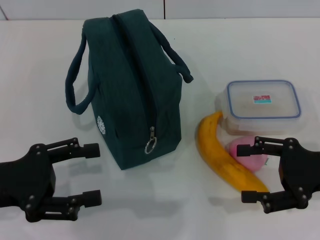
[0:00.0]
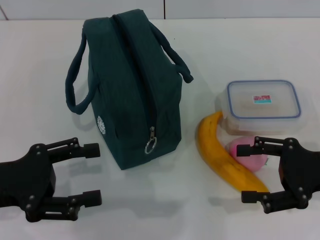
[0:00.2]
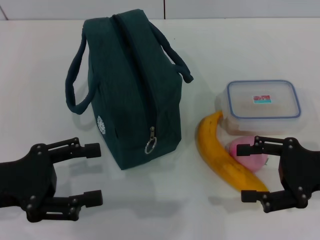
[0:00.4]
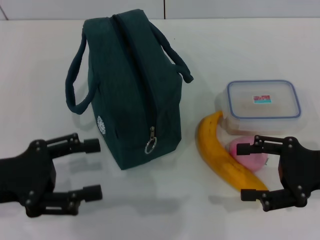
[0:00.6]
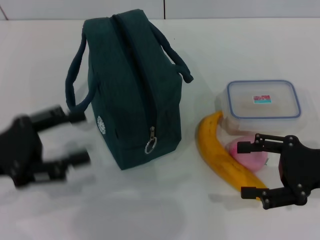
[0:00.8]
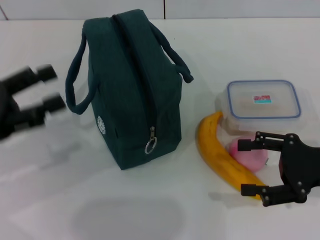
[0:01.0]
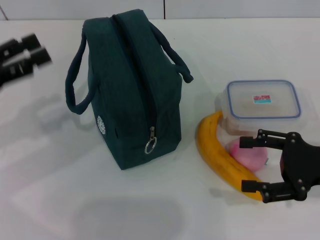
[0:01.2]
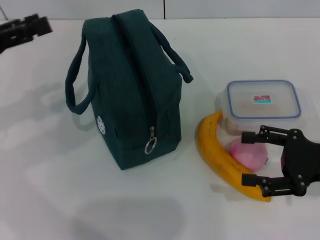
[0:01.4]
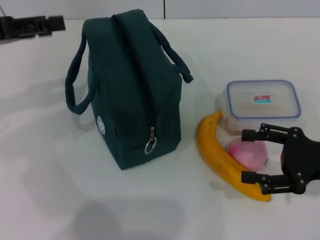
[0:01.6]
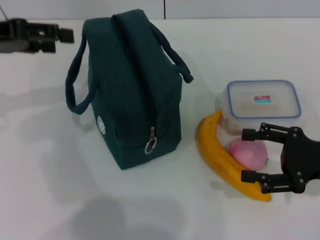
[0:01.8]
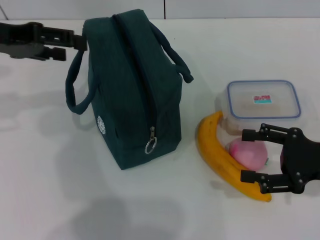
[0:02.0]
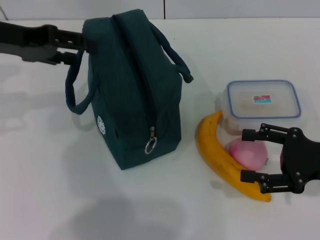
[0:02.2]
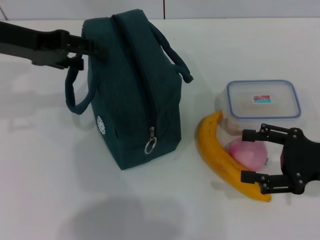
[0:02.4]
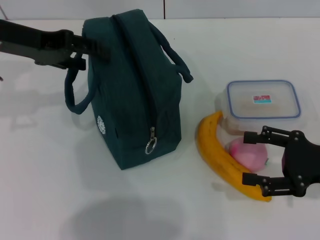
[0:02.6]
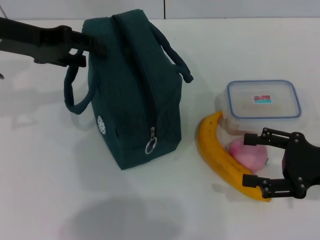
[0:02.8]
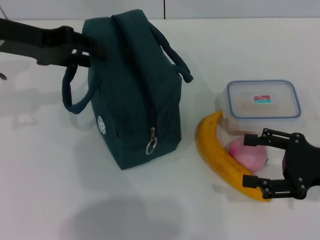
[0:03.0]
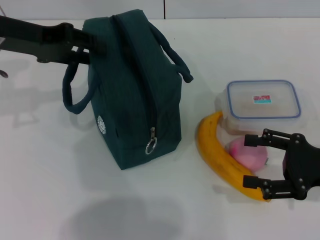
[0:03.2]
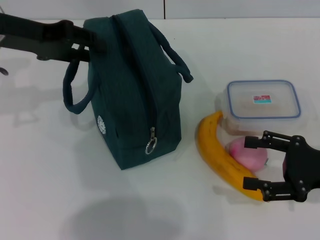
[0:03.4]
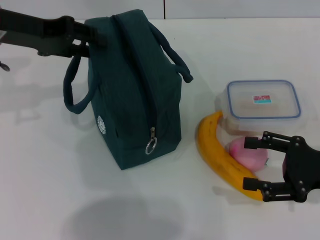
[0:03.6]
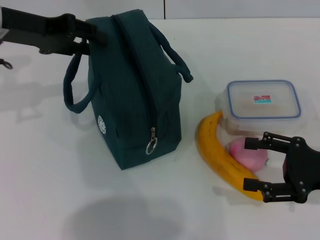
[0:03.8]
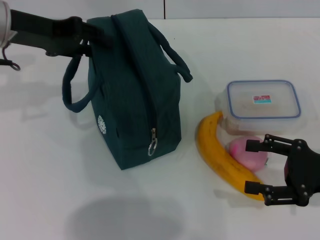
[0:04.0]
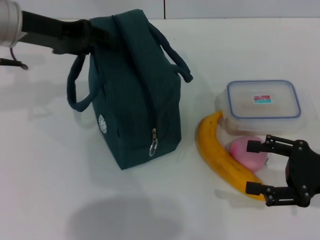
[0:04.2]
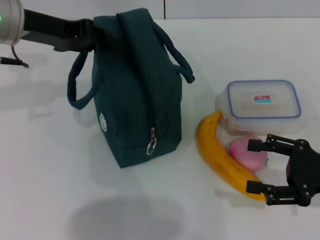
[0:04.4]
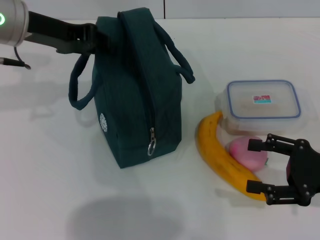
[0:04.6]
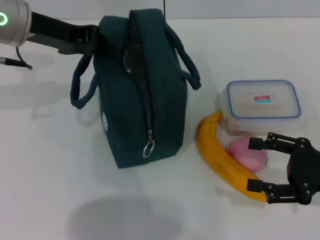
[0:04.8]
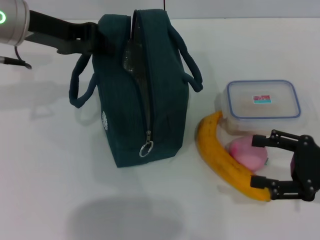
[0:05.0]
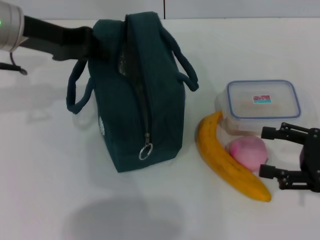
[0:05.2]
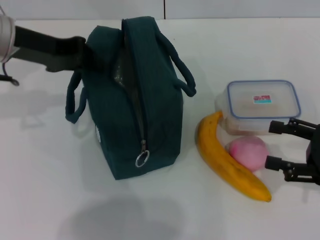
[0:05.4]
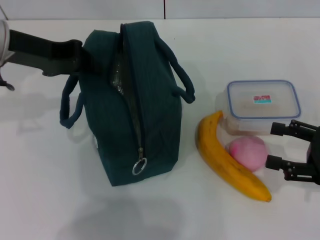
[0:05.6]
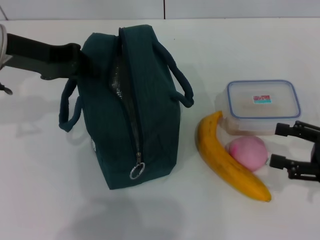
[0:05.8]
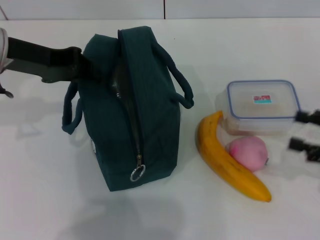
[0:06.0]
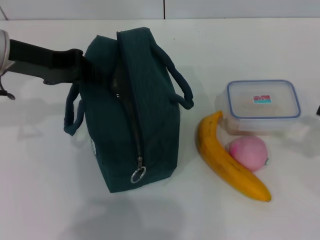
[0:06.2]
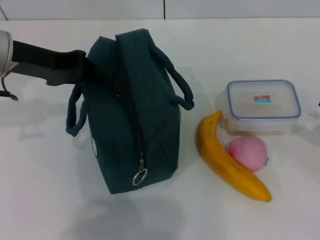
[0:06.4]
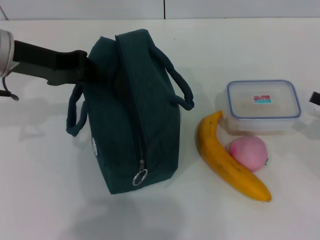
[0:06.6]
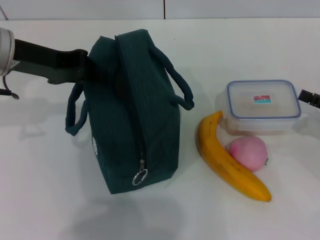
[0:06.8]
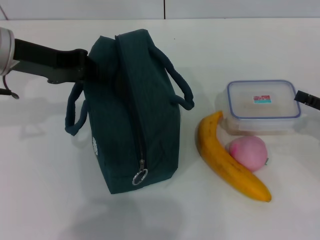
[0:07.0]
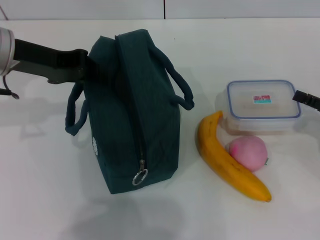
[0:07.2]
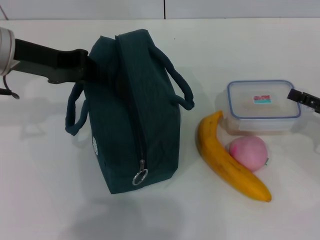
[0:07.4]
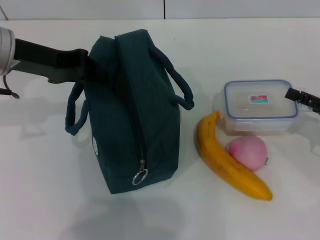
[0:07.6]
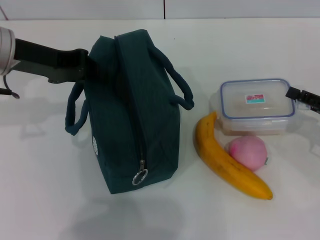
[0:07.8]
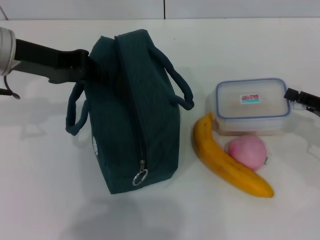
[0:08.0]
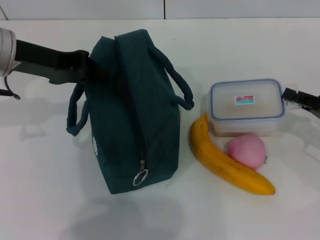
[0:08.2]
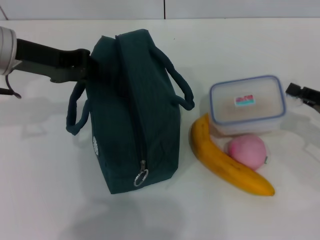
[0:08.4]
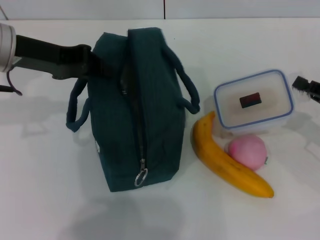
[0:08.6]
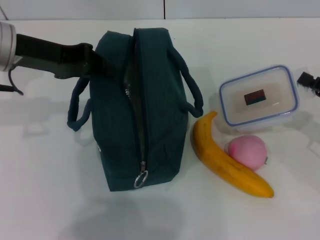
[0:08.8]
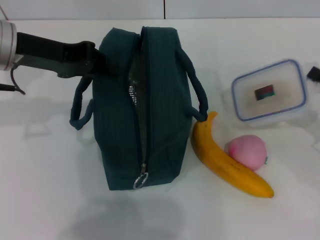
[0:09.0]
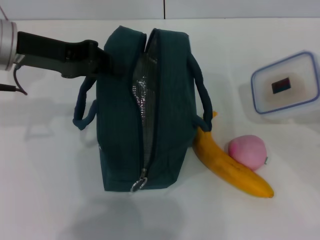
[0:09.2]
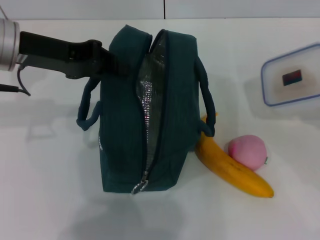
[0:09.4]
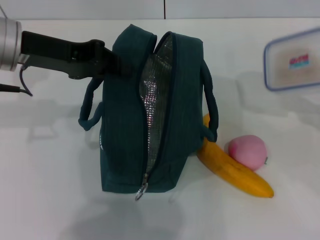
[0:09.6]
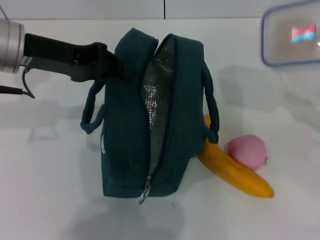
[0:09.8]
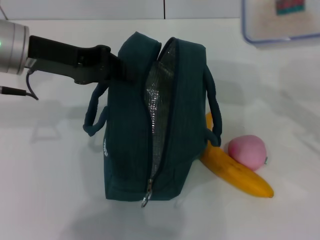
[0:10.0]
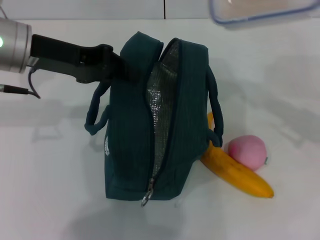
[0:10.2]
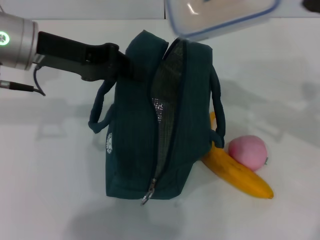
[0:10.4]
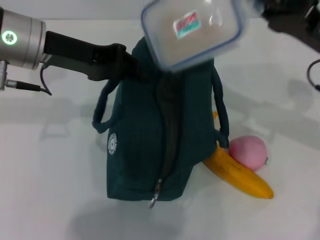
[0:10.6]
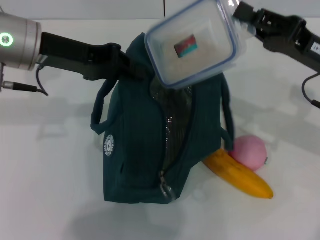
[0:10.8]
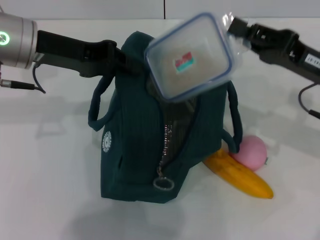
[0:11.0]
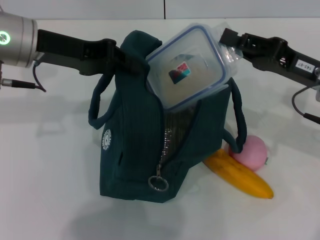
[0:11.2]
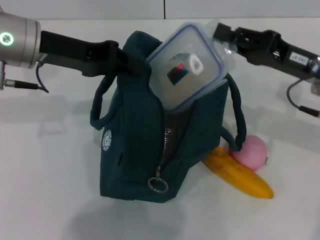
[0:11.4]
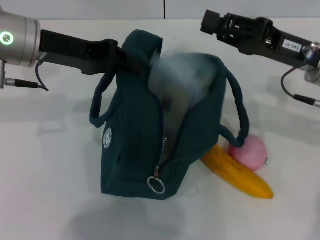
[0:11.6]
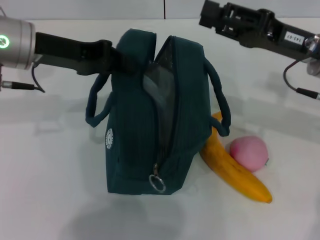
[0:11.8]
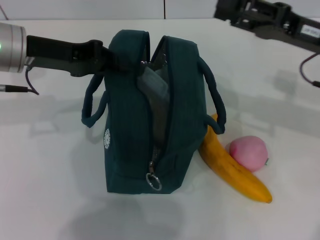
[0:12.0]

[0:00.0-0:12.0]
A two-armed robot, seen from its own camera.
Step, 0:00.0 to 0:05.8: Hold the lunch bag with your left hand.
Step, 0:06.0 to 0:08.2: Pick up the lunch box with your right hand.
Step, 0:08.4 to 0:11.8: Place the lunch box into the lunch bag with your right hand.
0:00.0 to 0:01.6: The left gripper shifts approximately 15 cm forward and upward.
0:01.6 to 0:03.0: The left gripper goes roughly 5 cm to the right.
0:03.0 to 0:04.4: The grippers make only small movements.
0:04.4 to 0:06.0: The right gripper heads to the right, covering approximately 5 cm; the left gripper closes up.
0:06.0 to 0:07.6: The right gripper moves some 5 cm.
0:07.6 to 0:09.0: The right gripper closes up.
0:09.0 to 0:10.4: The right gripper is displaced to the left and upward by approximately 15 cm.
0:10.4 to 0:12.0: The right gripper opens its fingers.

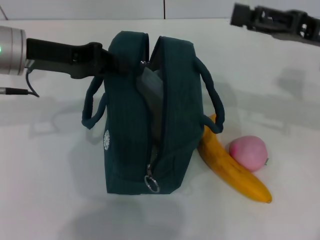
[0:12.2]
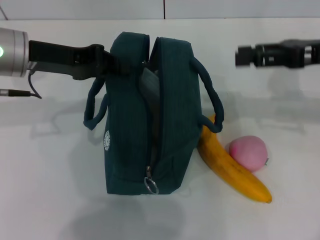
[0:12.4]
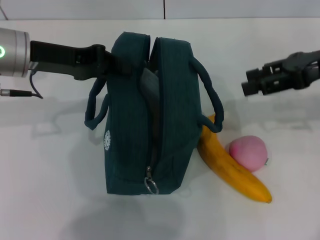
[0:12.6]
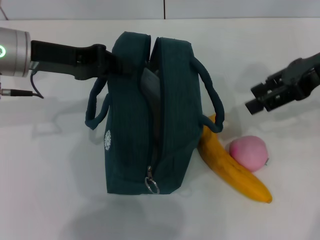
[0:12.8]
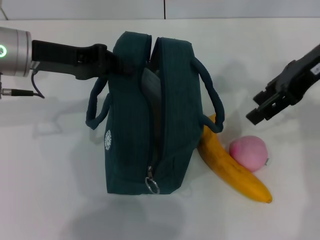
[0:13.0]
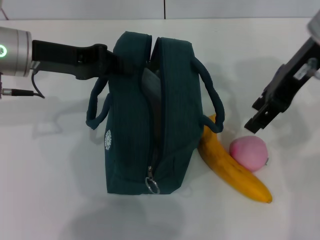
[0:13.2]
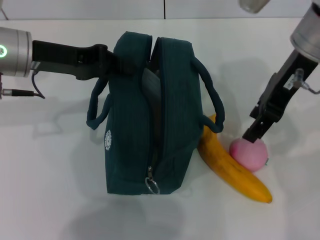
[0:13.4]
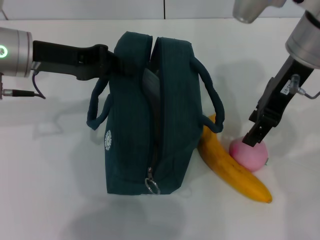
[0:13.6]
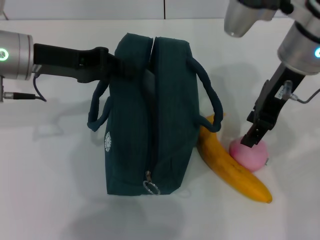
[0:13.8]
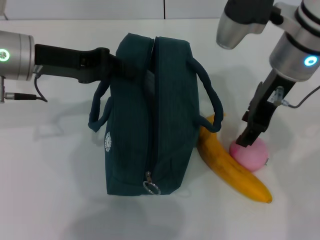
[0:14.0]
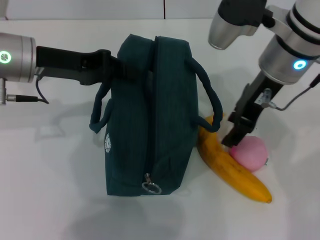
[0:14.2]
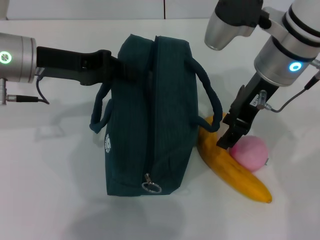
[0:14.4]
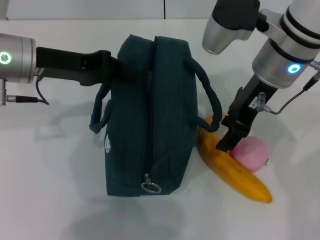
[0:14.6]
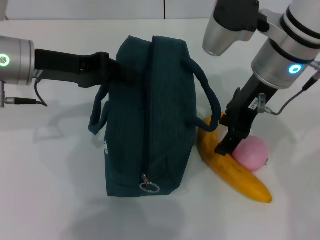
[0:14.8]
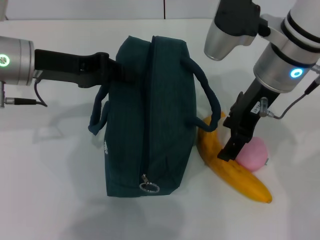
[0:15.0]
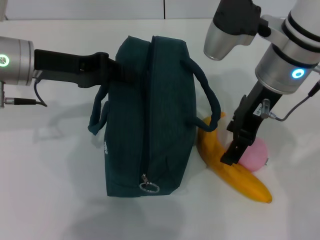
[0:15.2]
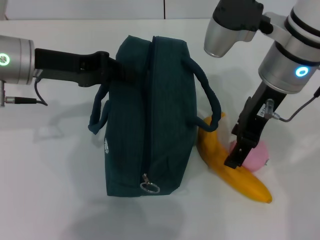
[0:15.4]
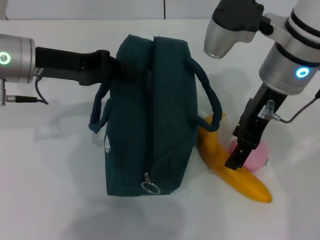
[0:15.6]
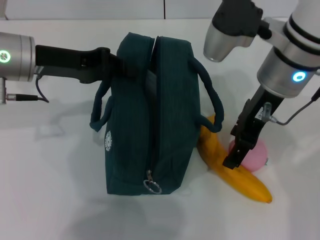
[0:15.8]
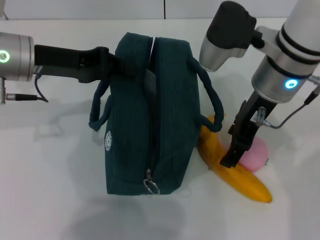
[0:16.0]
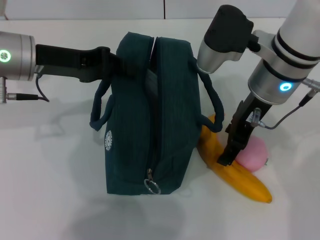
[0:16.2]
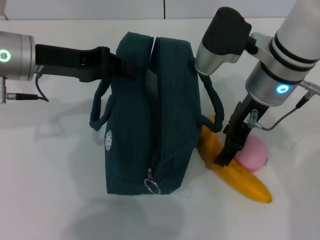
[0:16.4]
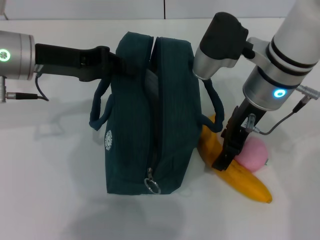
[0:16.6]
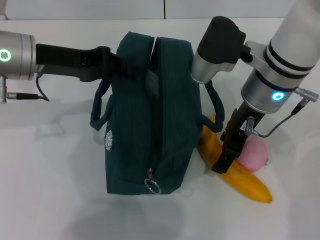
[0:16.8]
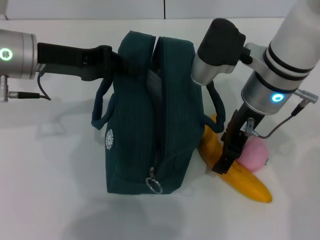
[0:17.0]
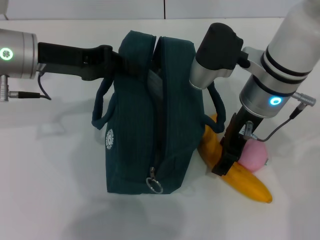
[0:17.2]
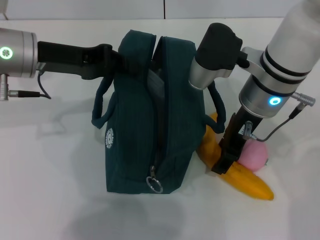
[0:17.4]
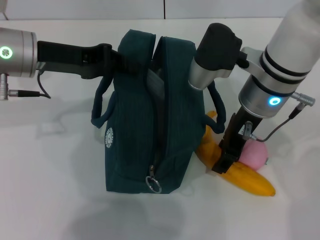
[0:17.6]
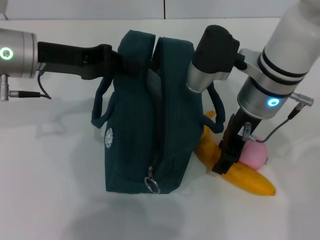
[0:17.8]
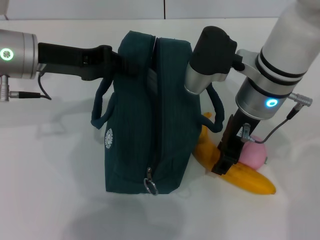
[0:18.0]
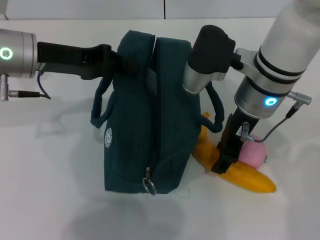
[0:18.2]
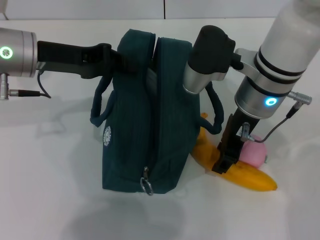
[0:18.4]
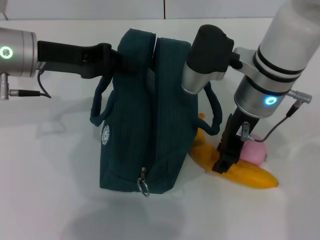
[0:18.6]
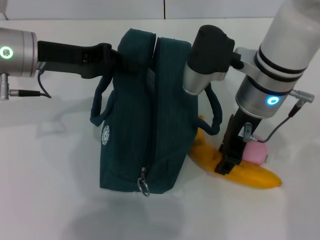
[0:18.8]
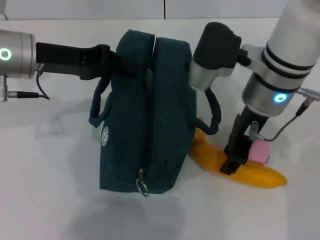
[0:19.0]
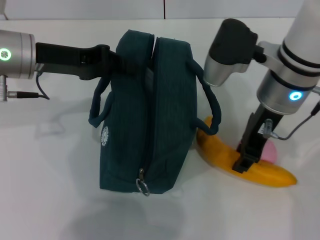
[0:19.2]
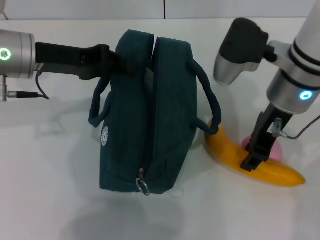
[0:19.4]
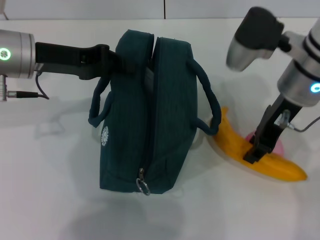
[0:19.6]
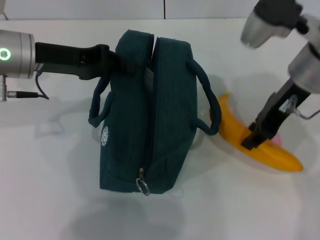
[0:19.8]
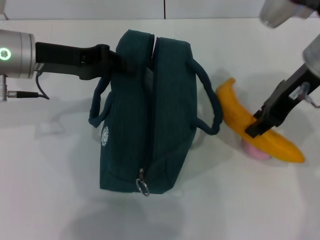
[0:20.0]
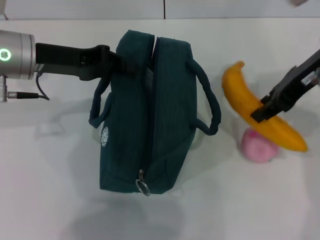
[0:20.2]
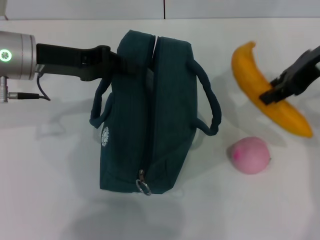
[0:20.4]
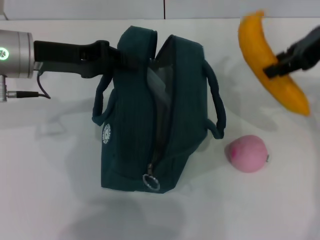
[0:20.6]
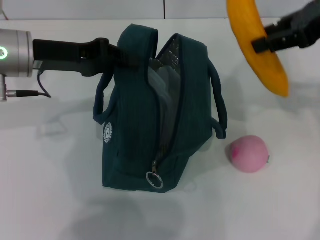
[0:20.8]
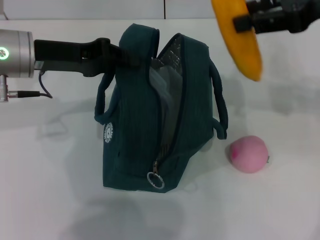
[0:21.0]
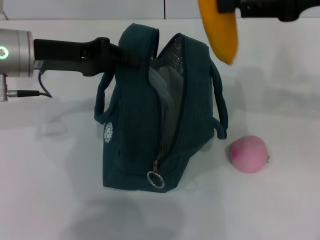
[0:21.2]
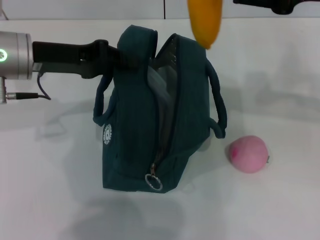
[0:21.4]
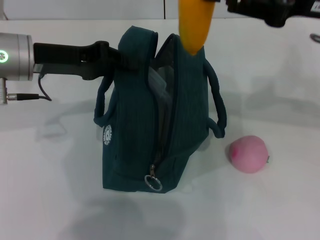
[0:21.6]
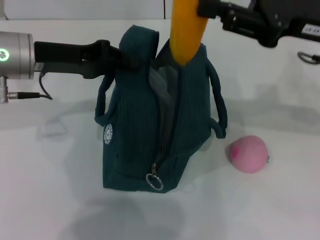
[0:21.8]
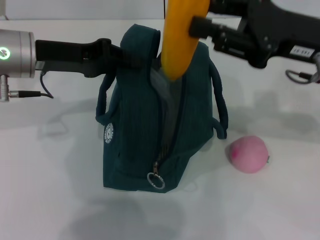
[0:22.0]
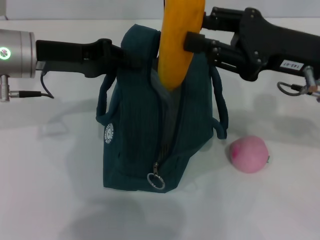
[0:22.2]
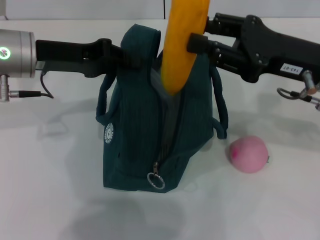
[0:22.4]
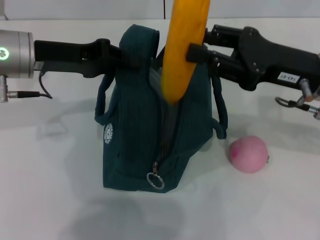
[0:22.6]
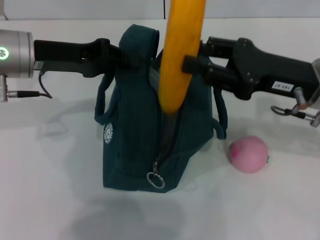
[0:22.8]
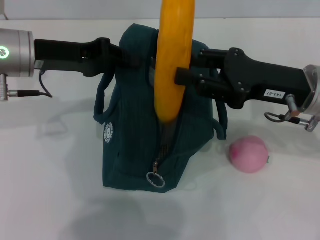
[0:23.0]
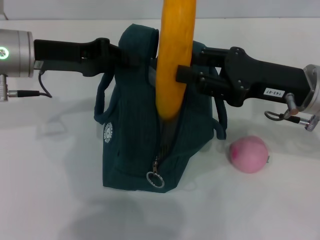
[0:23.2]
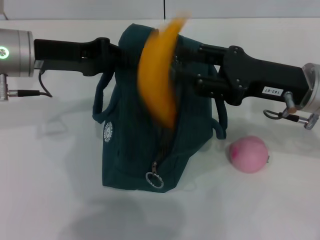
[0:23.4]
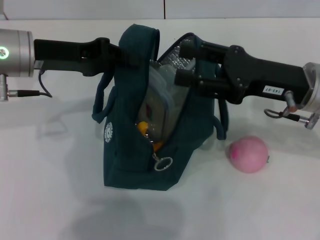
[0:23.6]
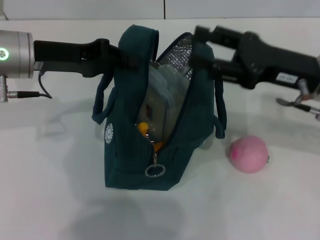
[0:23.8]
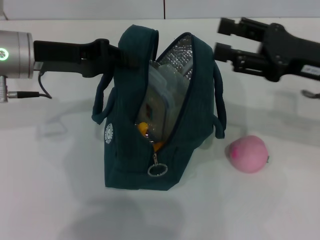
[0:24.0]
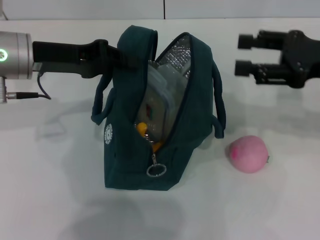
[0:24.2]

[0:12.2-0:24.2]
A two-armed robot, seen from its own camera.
Step, 0:12.2 to 0:17.4: Take the banana with your right hand.
Step, 0:17.6 to 0:23.4: Put the banana into the lunch bag with your right hand.
0:12.2 to 0:13.8: The right gripper is displaced to the left by some 10 cm.
0:13.8 to 0:15.2: The grippers move only a little.
0:15.2 to 0:18.2: The grippers stay close to where they were, moving slightly.
0:18.2 to 0:19.8: The right gripper moves to the right, about 5 cm.
0:19.8 to 0:21.2: The right gripper goes approximately 10 cm upward and to the right.
0:21.2 to 0:22.6: The right gripper is displaced downward by approximately 15 cm.
0:22.6 to 0:24.2: The right gripper shifts approximately 5 cm to the right.
